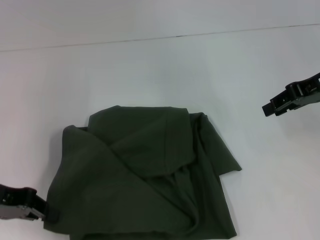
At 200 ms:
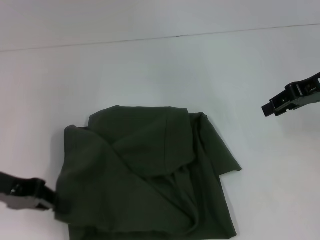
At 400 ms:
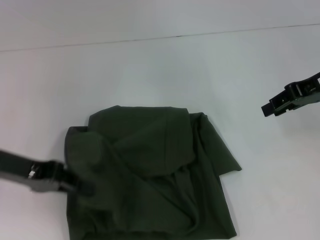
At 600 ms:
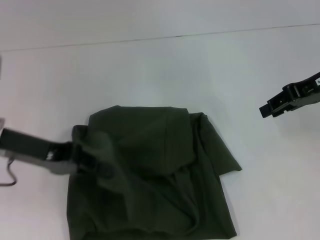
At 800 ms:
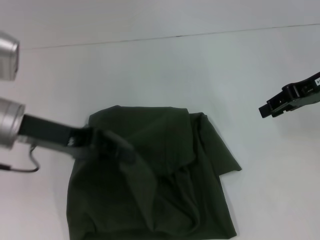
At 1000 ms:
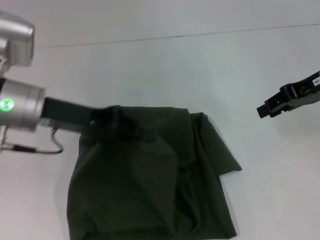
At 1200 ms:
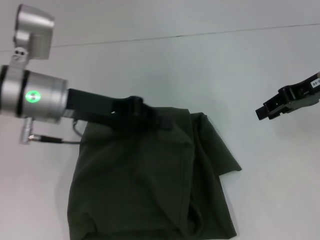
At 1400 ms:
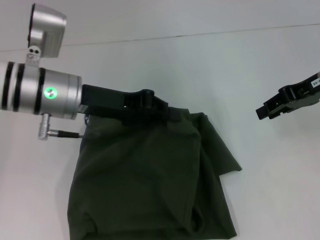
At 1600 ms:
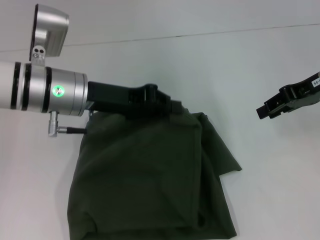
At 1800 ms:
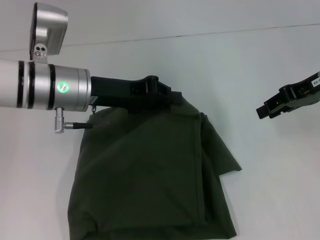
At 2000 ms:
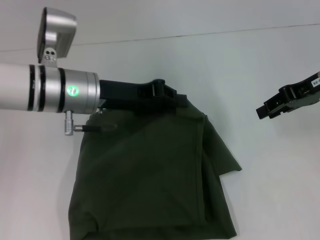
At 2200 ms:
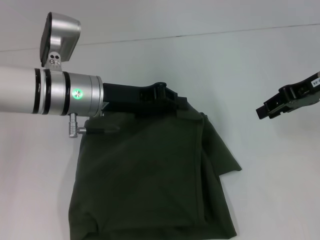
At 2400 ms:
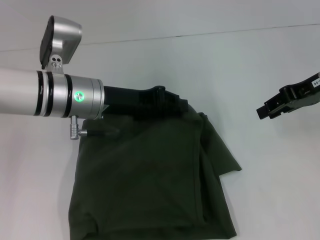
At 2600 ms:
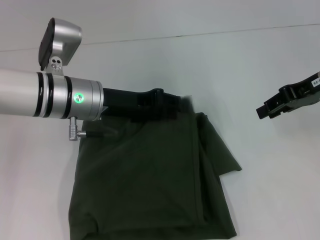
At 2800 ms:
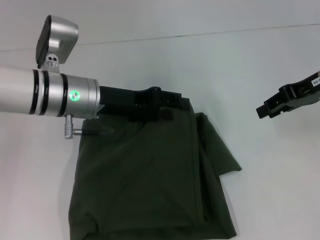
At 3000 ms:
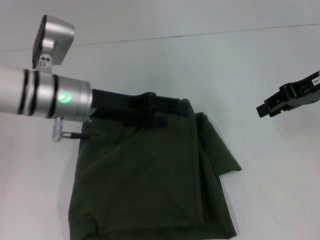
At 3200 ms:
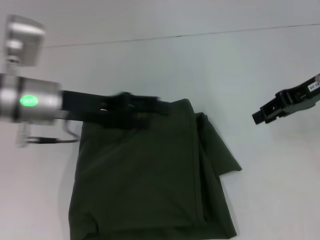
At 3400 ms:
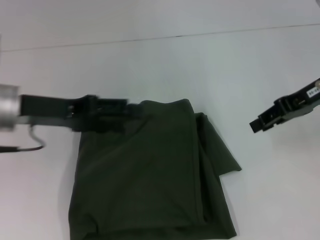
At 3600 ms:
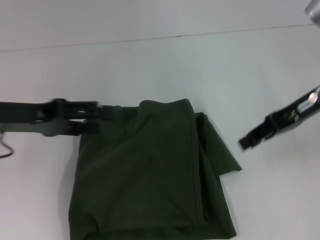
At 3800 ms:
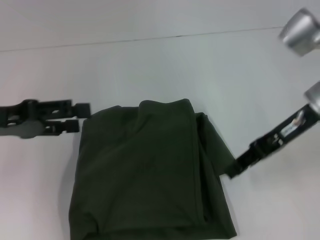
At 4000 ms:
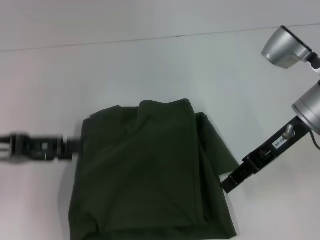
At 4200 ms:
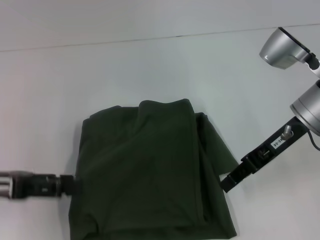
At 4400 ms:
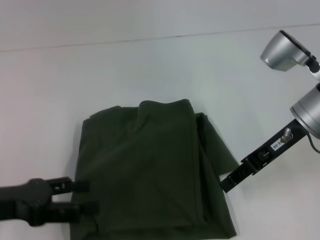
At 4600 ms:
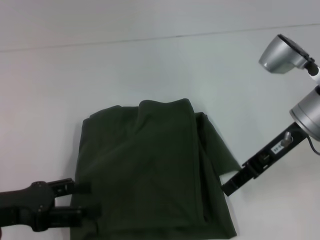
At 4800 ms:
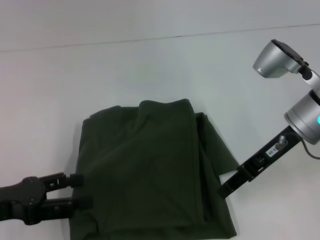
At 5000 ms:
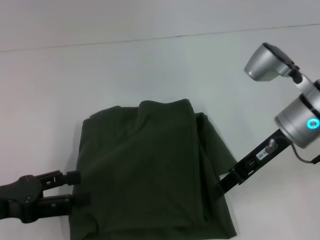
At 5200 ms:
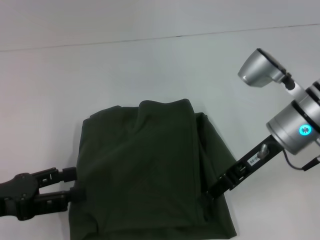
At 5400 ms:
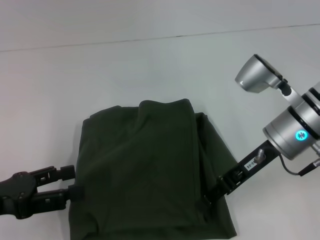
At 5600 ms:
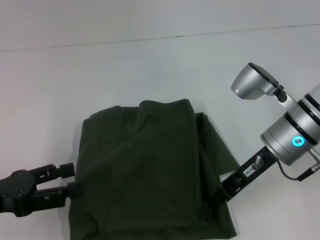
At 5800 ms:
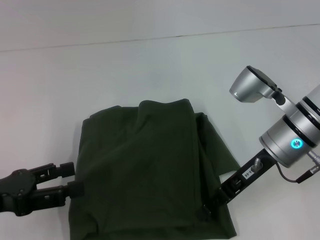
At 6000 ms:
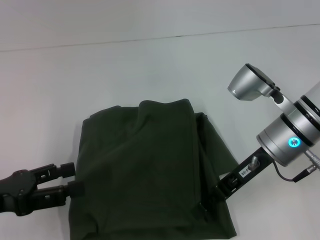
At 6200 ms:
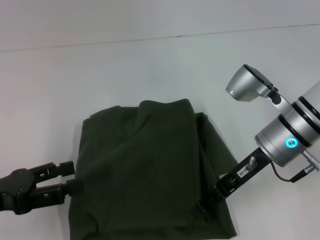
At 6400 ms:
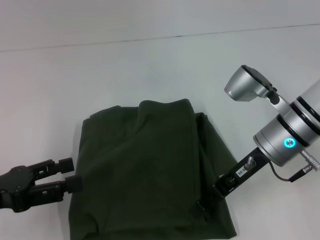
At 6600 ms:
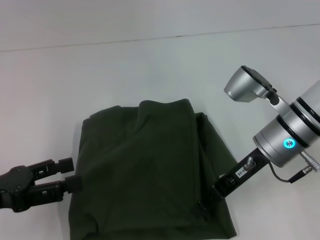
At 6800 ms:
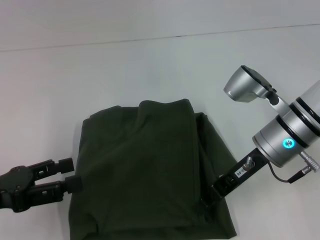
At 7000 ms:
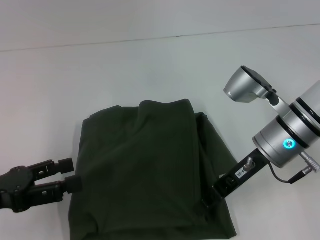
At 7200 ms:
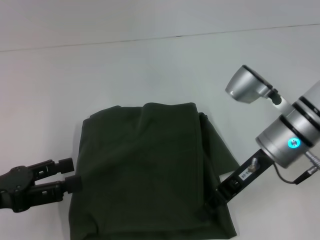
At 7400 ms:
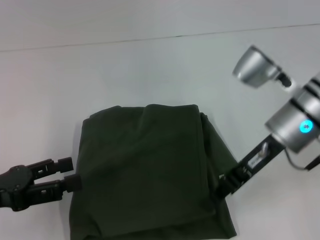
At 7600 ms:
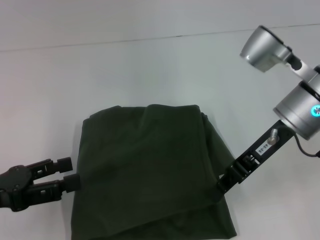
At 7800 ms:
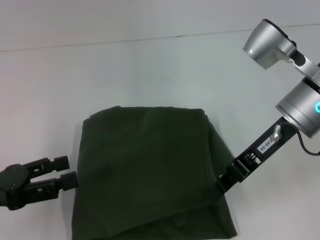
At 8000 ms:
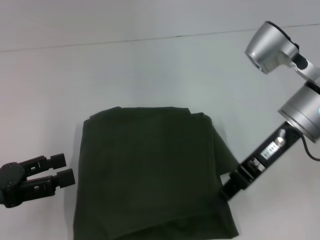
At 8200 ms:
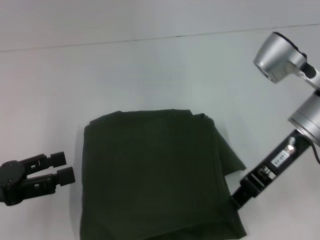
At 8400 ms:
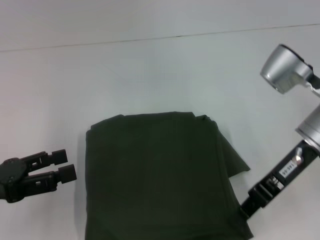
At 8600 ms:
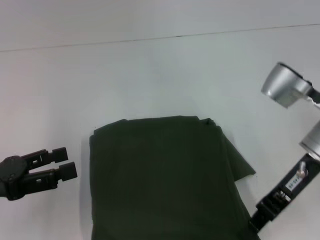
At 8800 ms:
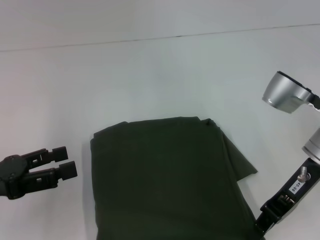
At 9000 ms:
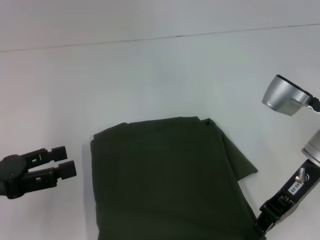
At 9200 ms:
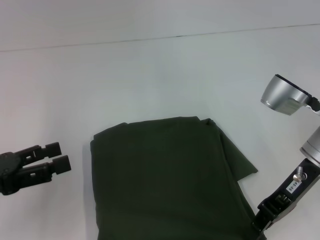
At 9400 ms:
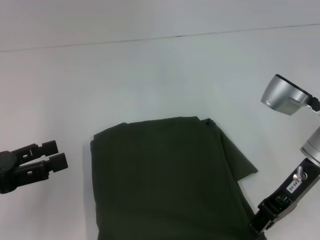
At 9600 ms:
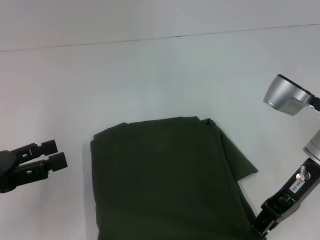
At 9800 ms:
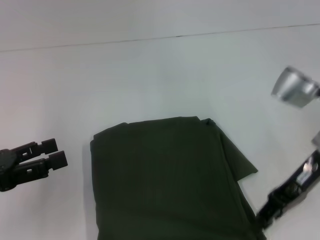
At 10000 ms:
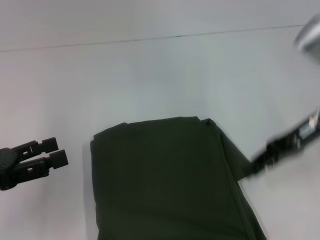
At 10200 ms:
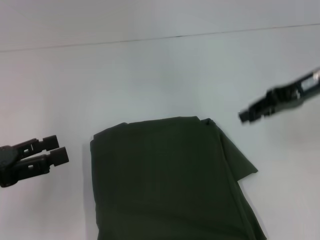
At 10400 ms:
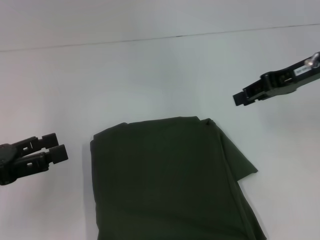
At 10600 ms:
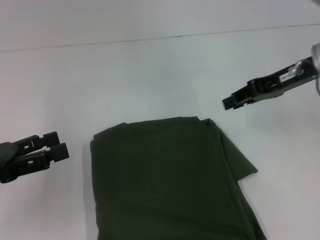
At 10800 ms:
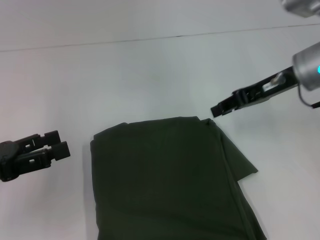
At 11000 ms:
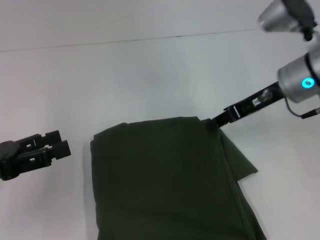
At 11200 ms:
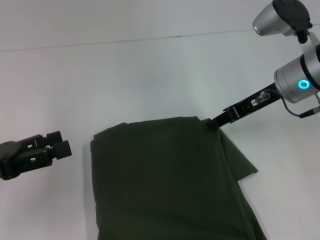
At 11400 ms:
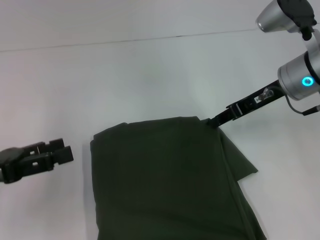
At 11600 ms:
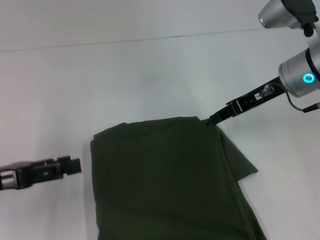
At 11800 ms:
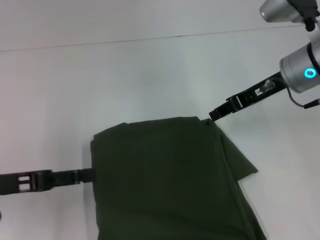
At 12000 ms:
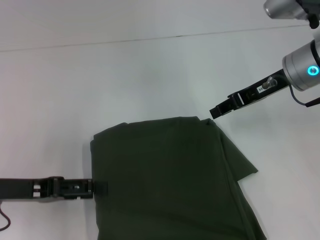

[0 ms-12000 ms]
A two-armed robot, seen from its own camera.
0 ms to 1600 ms: The left gripper moves to the right and forward, approximately 15 cm.
1600 ms to 3000 ms: The left gripper opens its fingers.
3000 ms to 4400 ms: The right gripper heads to the left, covering approximately 5 cm. Meanwhile the left gripper travels to the left and backward by some 20 cm.
4400 ms to 6000 ms: The right gripper shifts by approximately 5 cm.
6000 ms to 7600 ms: The right gripper is displaced upward by roughly 5 cm, and closes up.
7600 ms to 9000 ms: The right gripper moves approximately 5 cm.
9000 ms to 10400 ms: The right gripper travels upward and forward by approximately 10 cm.
10400 ms to 12000 ms: The left gripper changes place by approximately 5 cm. Meanwhile the right gripper changes place by some 5 cm.

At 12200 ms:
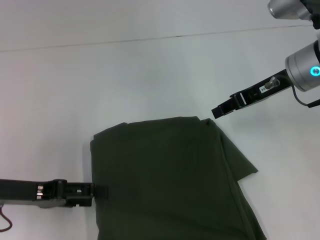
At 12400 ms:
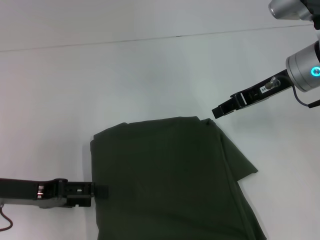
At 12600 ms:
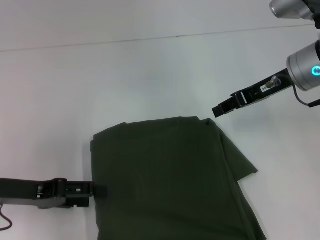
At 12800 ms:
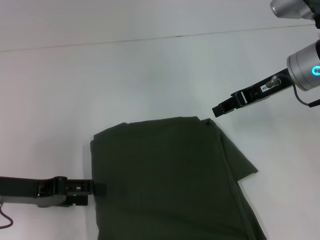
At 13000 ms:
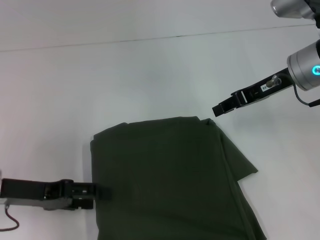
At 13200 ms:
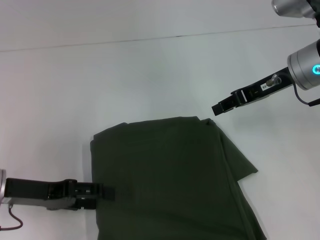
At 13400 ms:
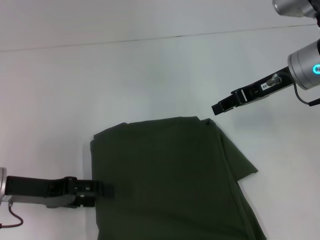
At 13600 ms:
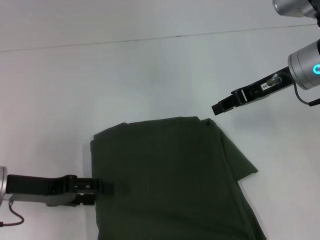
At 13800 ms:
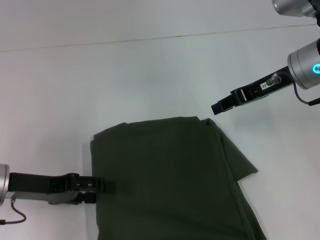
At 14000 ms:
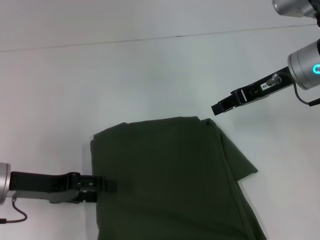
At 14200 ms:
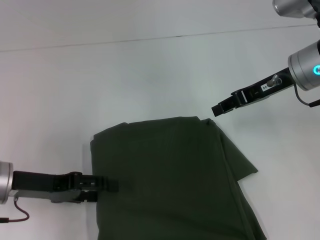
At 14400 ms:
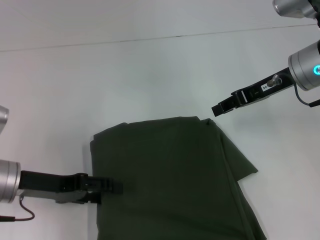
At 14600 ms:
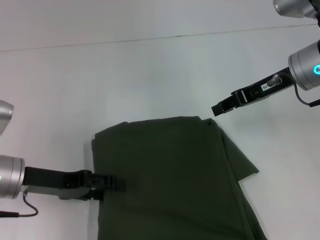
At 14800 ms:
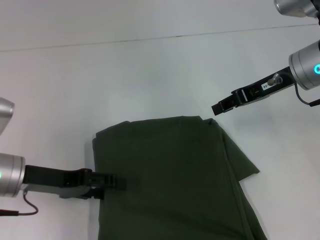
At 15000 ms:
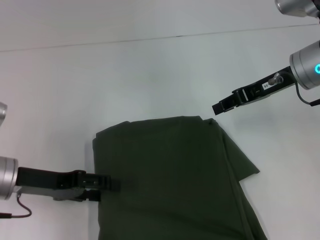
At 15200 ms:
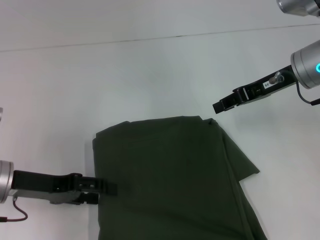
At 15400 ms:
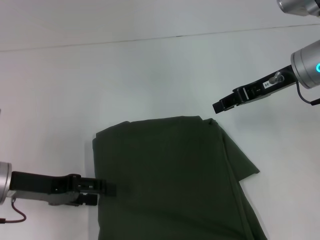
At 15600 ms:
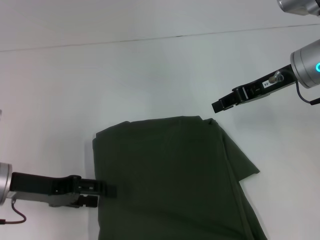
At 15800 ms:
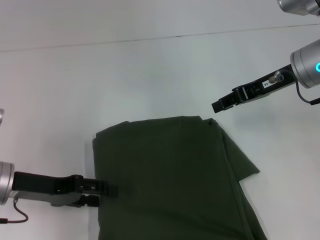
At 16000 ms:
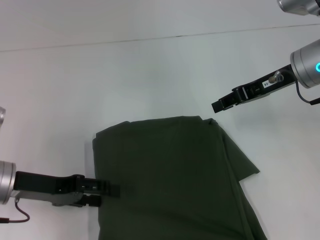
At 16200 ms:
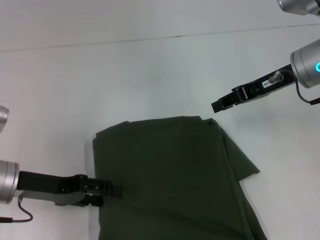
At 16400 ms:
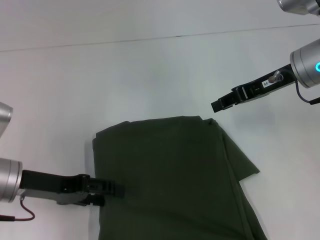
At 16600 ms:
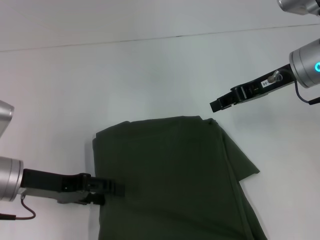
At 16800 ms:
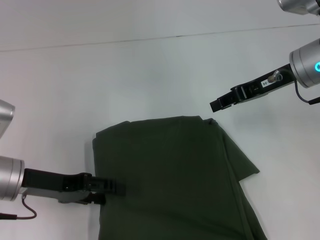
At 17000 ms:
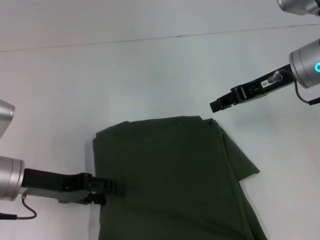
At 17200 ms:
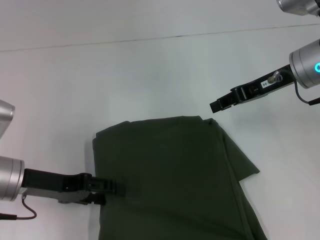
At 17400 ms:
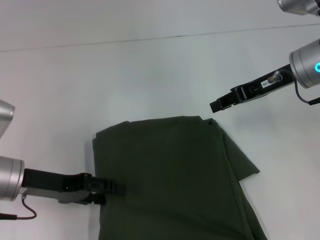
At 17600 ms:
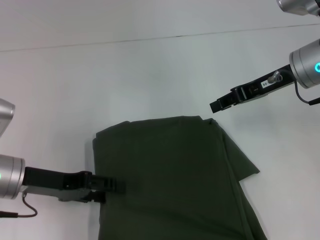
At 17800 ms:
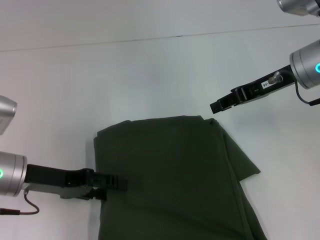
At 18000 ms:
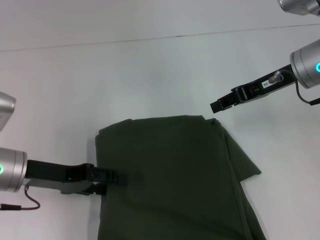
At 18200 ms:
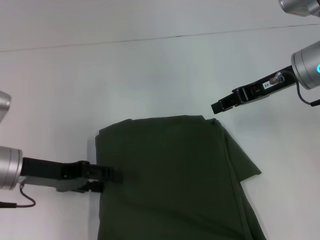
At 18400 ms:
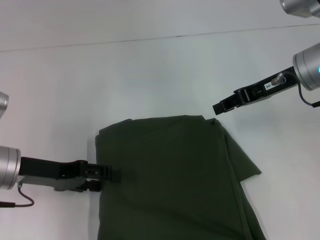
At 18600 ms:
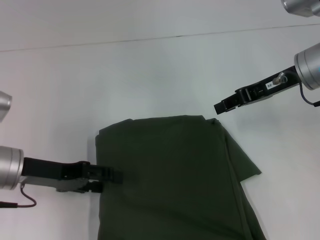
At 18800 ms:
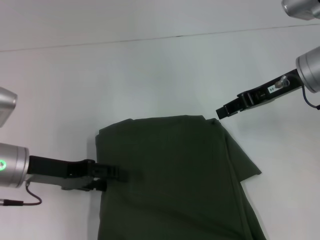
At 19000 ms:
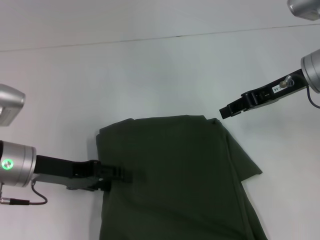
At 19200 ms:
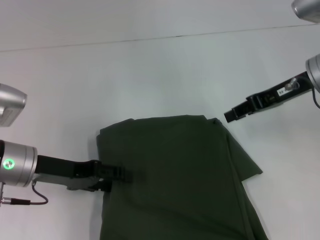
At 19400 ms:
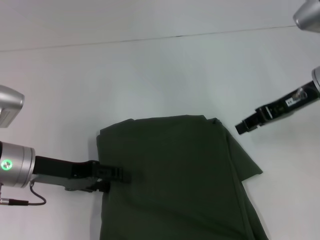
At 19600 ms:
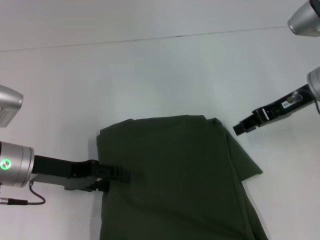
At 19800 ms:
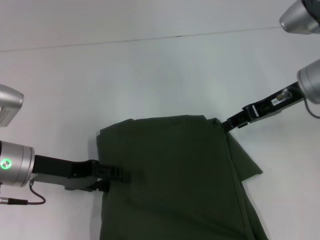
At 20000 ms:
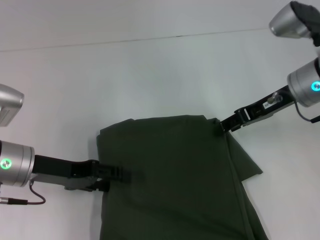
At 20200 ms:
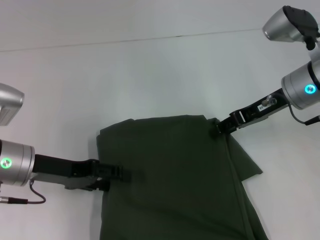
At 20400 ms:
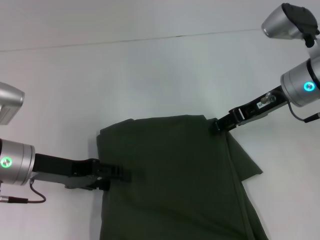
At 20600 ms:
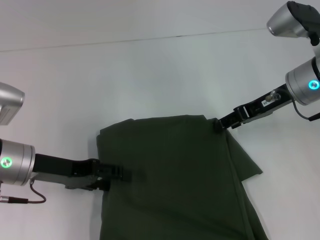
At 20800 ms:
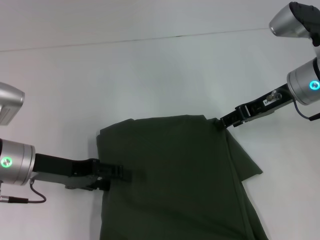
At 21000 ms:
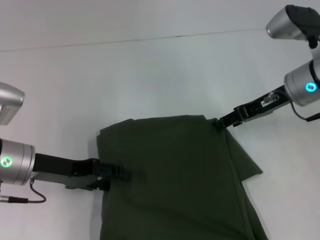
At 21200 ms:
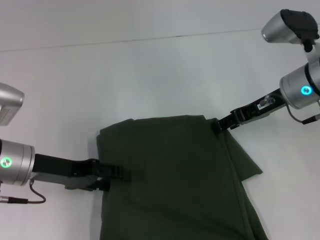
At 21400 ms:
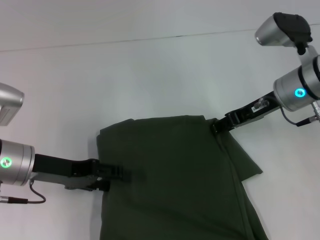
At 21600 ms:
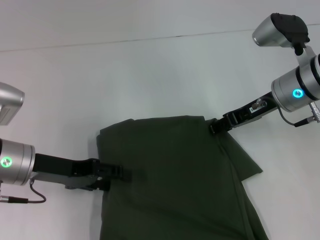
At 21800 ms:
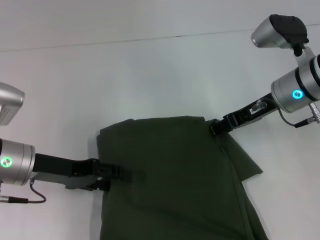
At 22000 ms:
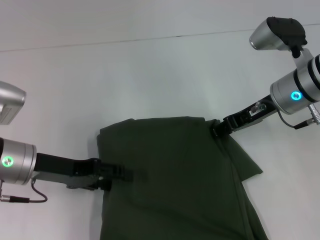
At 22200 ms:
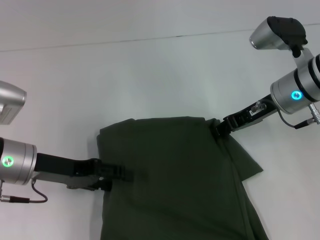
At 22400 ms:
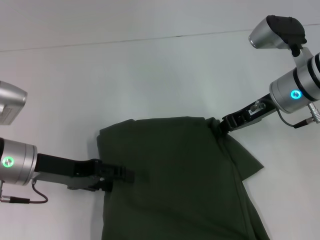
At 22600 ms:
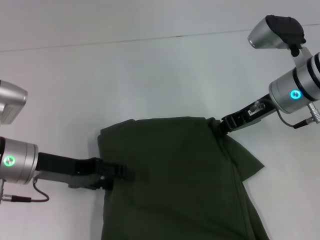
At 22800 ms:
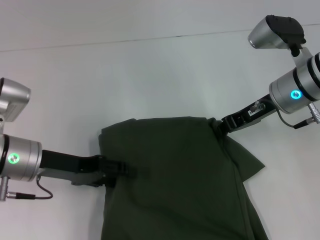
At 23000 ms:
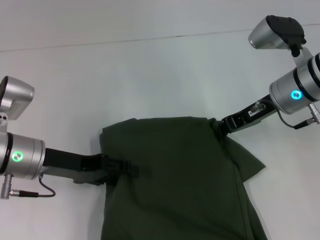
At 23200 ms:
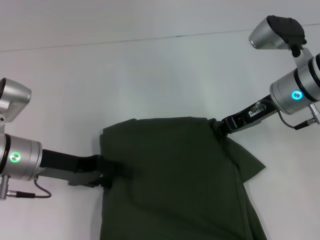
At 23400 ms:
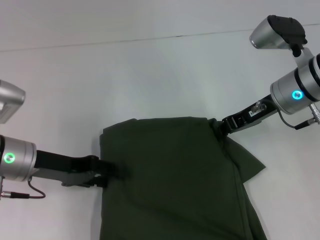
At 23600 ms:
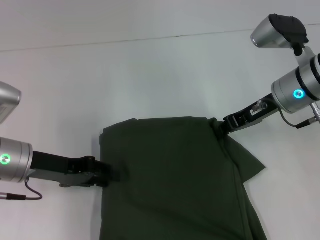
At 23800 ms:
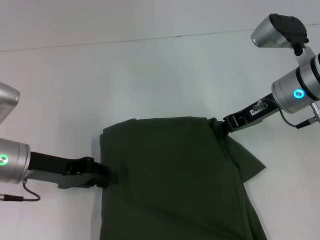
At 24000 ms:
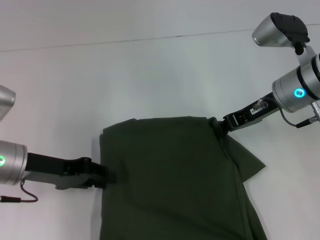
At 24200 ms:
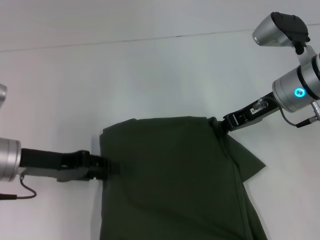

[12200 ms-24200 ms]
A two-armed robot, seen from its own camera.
12200 ms to 15200 ms: There are only small adjustments of the grippers.
15200 ms to 16600 ms: Neither gripper changes place.
16600 ms to 18200 ms: The two grippers keep their place.
18200 ms to 21200 ms: The grippers move only a little.
21200 ms to 22600 ms: The right gripper closes.
22600 ms to 24200 ms: The left gripper closes up.
